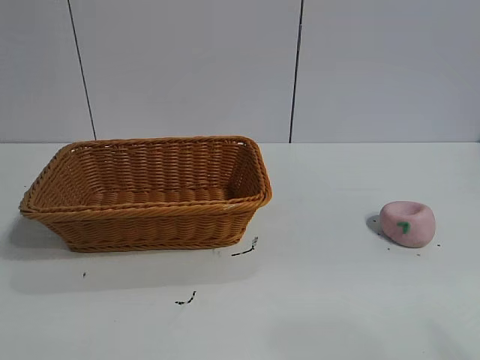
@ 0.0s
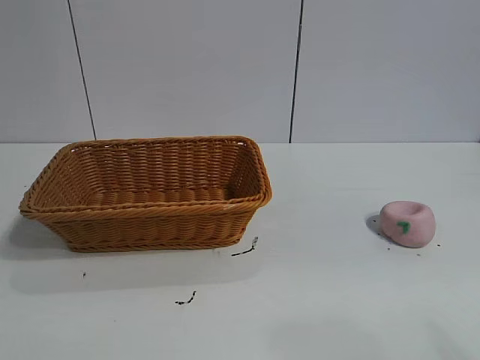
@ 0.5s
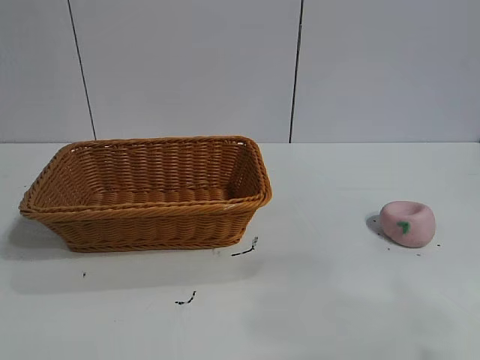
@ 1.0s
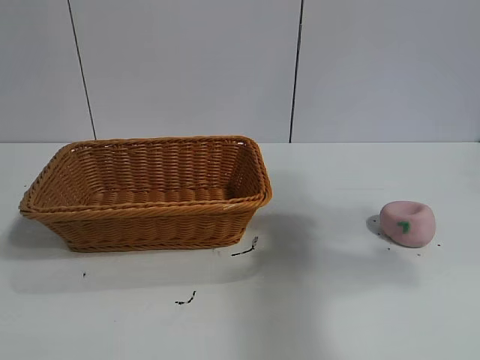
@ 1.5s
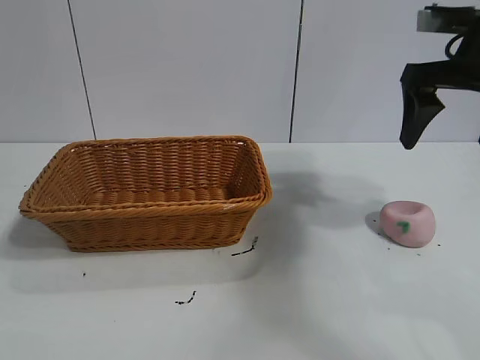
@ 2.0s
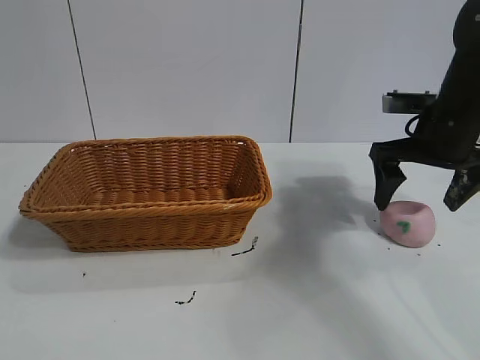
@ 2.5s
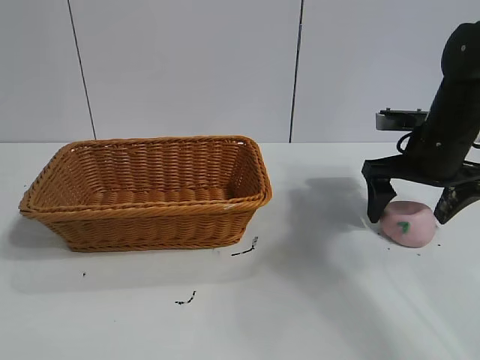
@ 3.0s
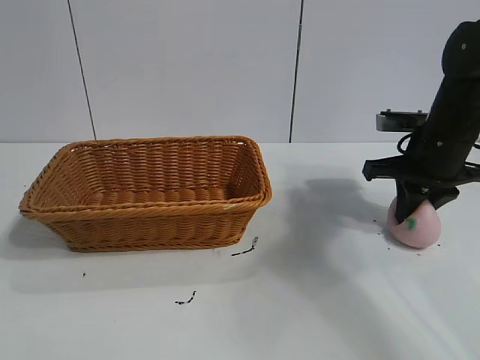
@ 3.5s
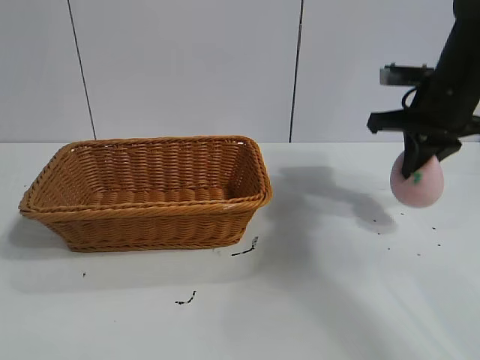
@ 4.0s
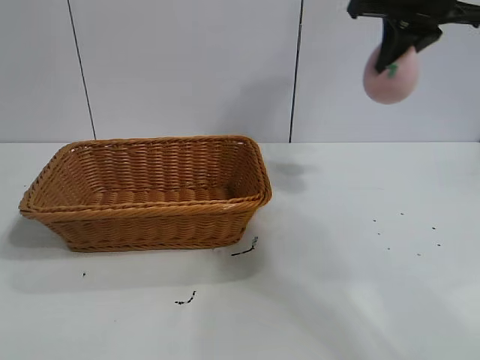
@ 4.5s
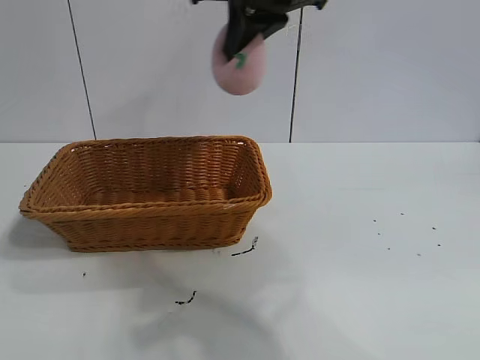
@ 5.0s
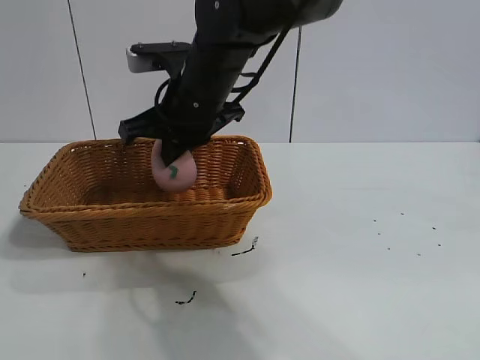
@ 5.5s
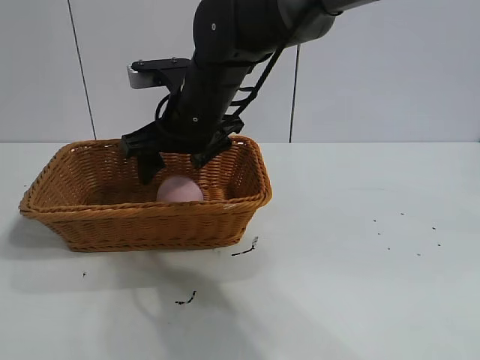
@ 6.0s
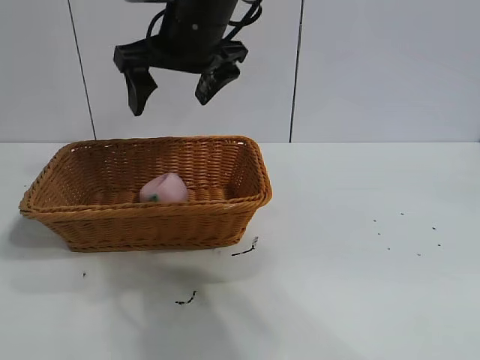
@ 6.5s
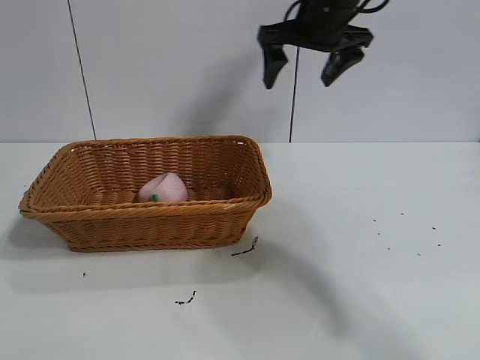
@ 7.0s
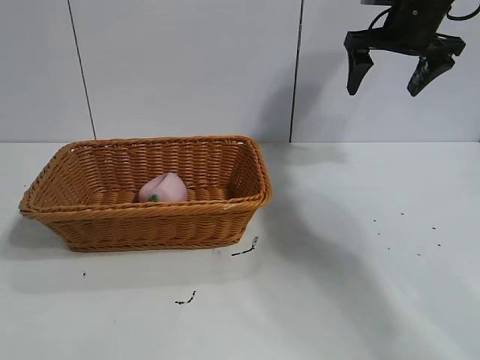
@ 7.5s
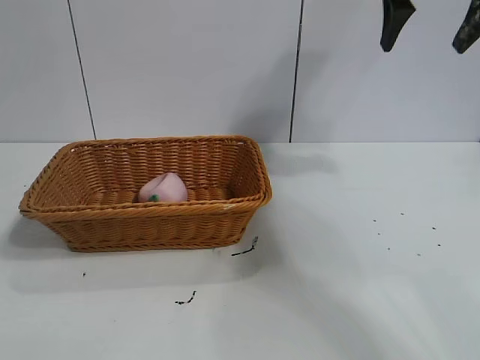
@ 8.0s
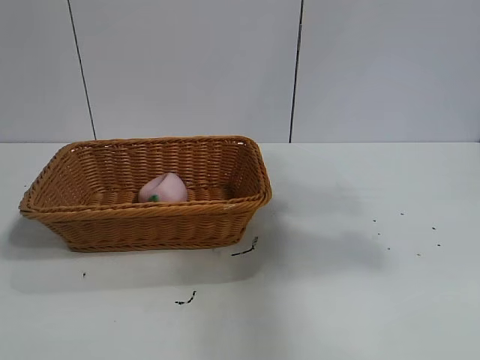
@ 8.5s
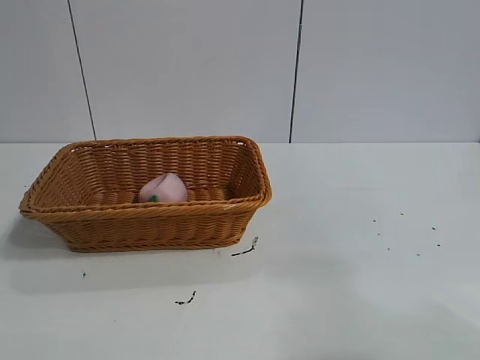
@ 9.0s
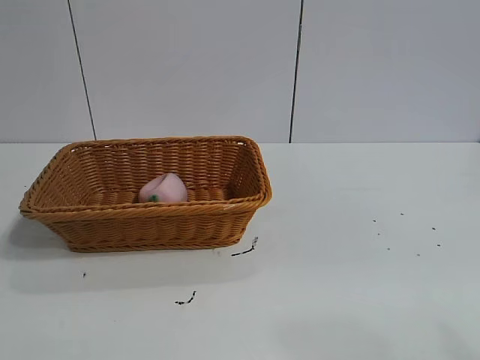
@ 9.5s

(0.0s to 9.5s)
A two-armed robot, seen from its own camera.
Task of the whole recording: pick up the peach and put it into the basket.
Step, 1.0s - 3.5s: Grasp the peach with right gripper.
Step, 4.0s - 6.0s: Place the peach in the basket with right gripper.

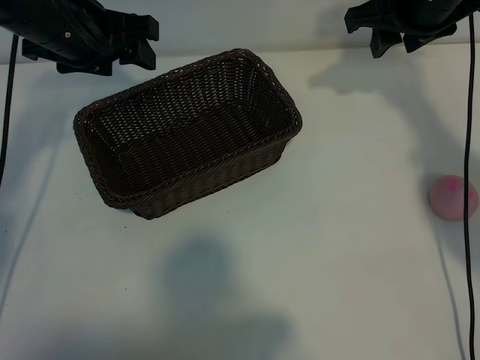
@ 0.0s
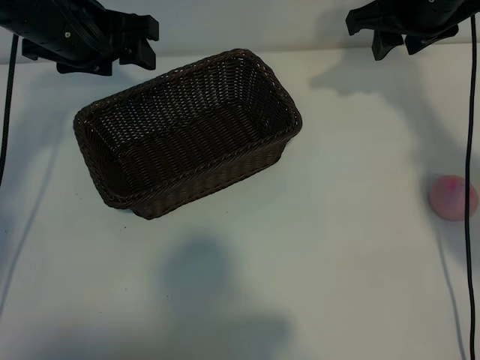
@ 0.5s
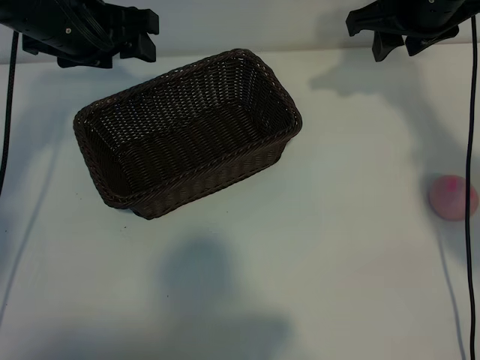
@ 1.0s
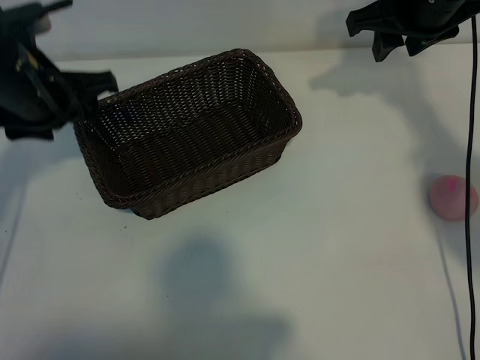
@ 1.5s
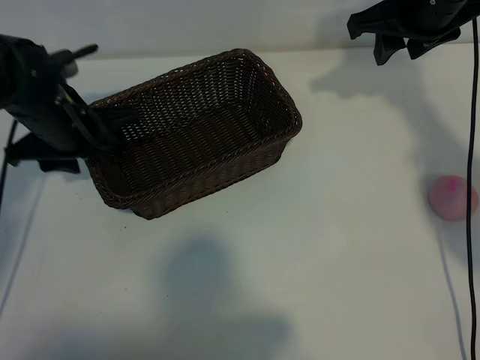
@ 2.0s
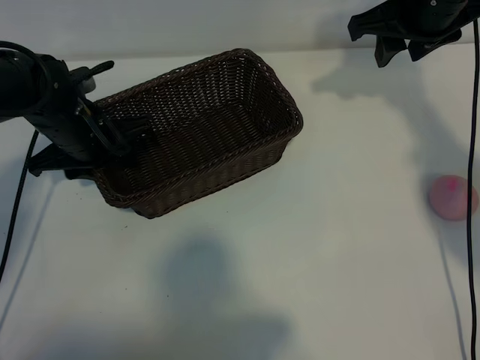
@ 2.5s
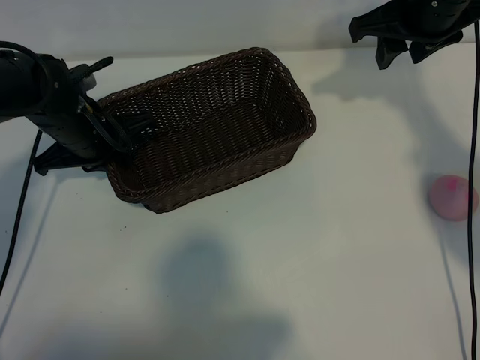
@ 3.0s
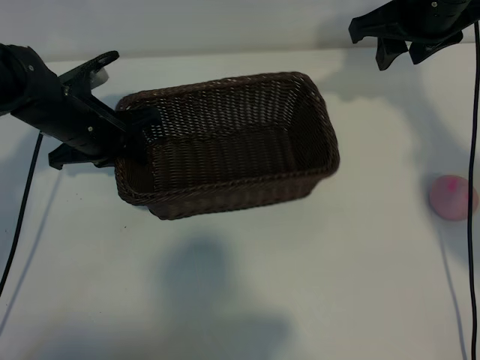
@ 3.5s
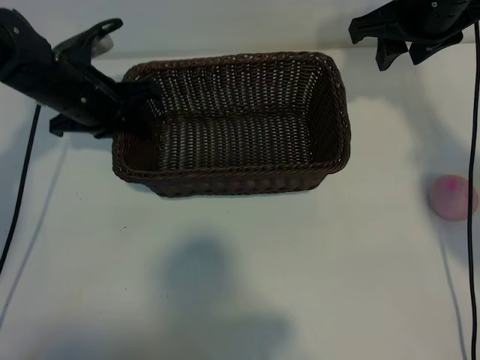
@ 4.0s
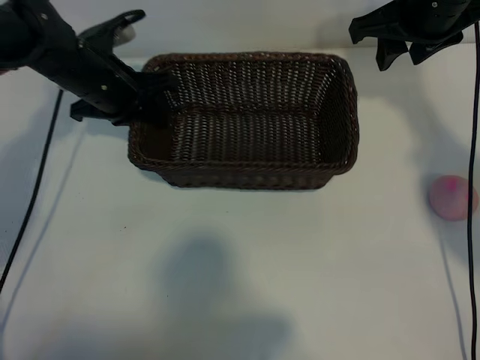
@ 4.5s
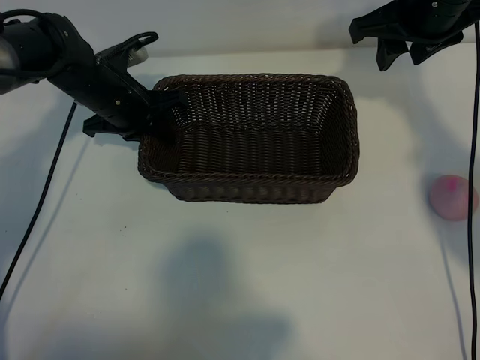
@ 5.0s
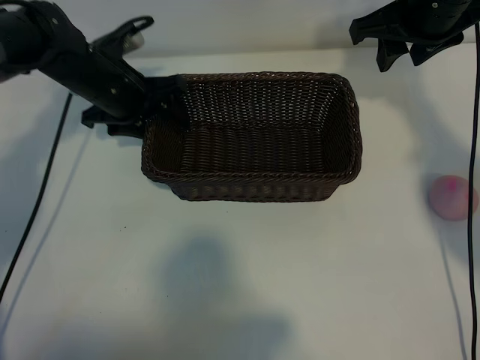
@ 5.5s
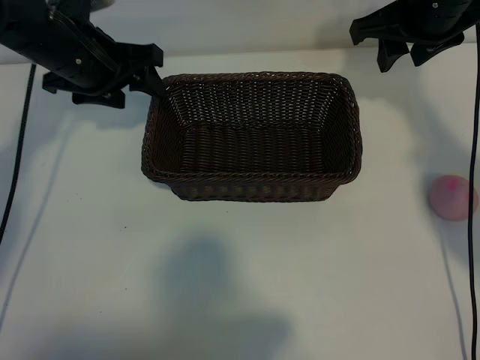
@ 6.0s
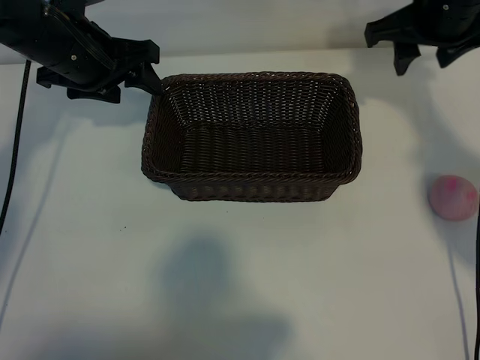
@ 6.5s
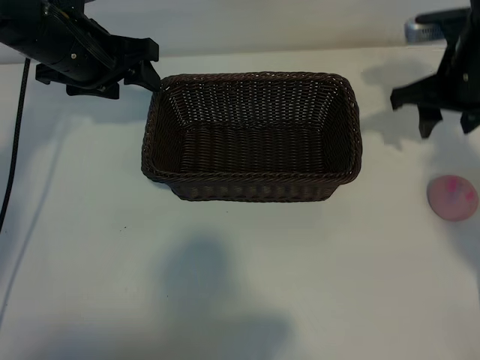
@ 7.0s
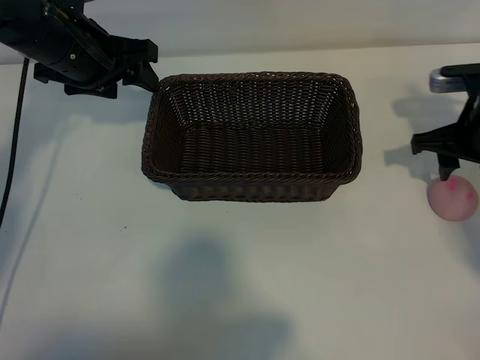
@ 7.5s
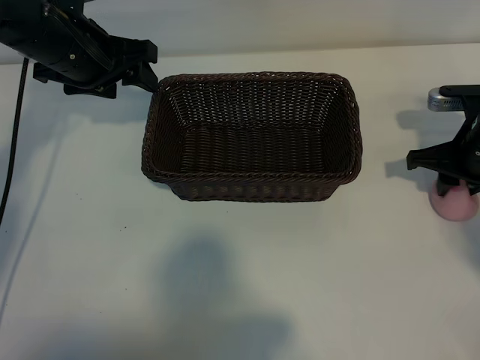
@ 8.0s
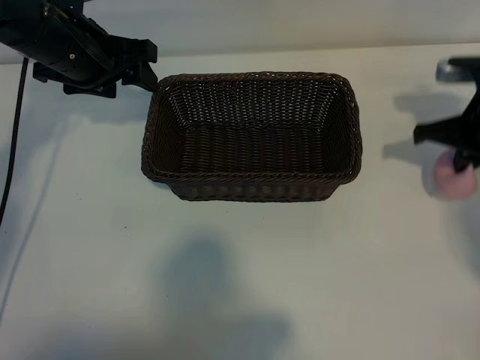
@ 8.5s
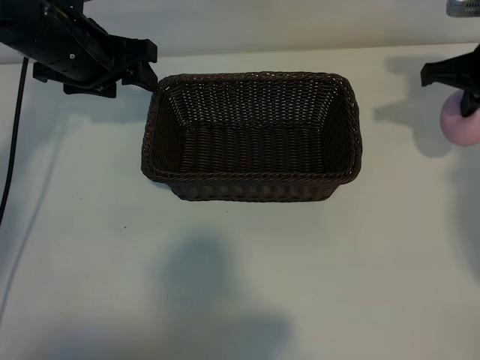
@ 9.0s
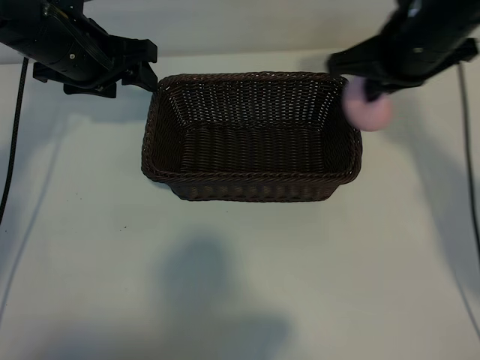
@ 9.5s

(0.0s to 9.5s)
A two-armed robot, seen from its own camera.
Task of the whole recording: pick up the peach and put it into the basket.
Step, 1.0s - 2.5s: Grasp the basket with left gripper.
Step, 3.0s - 5.5s: Place the basket in the center of view with left gripper.
Step, 6.0s - 8.0s: Grasp the peach with right gripper.

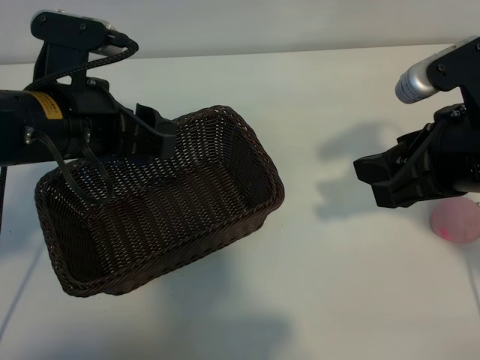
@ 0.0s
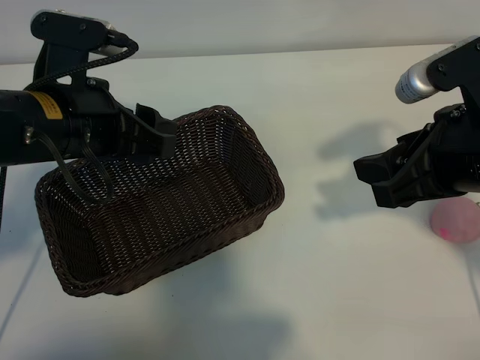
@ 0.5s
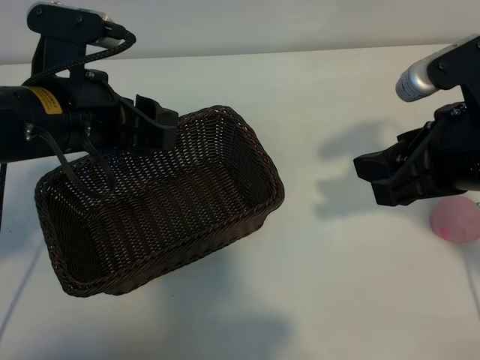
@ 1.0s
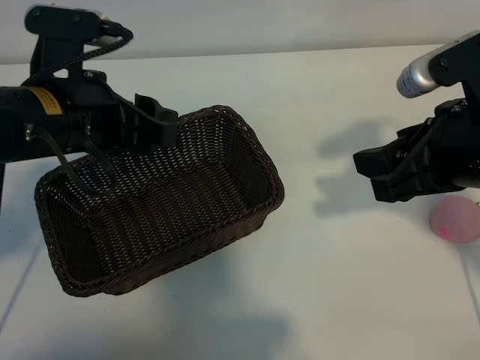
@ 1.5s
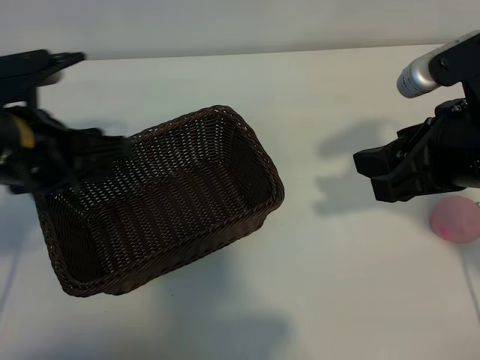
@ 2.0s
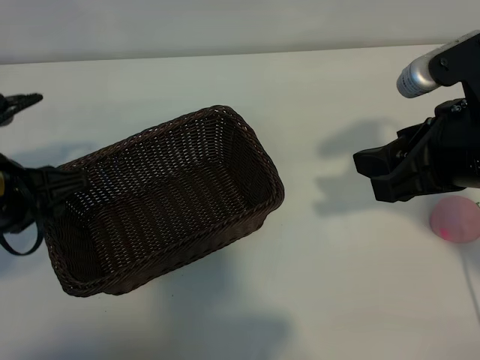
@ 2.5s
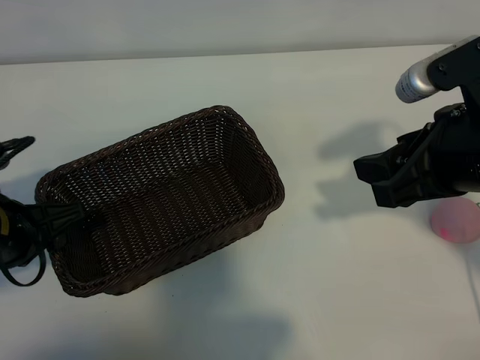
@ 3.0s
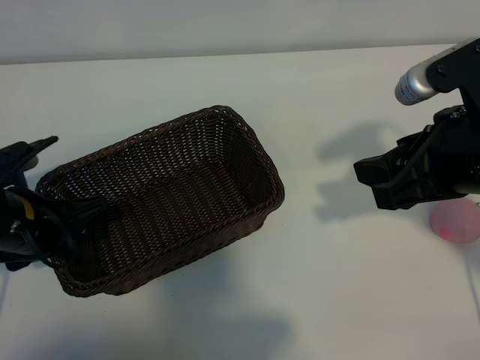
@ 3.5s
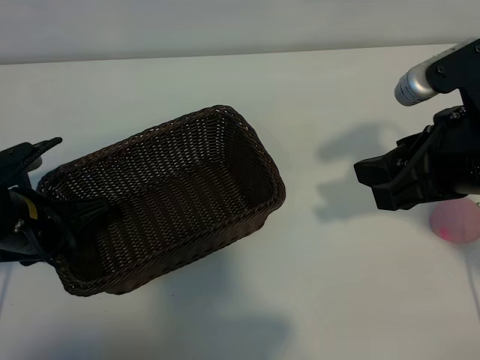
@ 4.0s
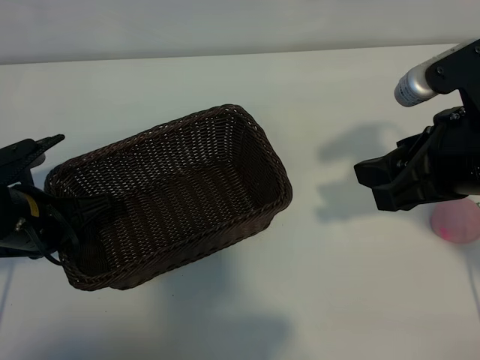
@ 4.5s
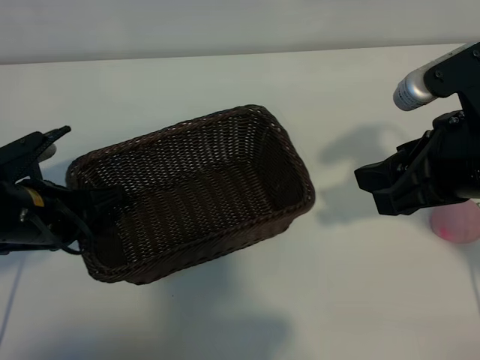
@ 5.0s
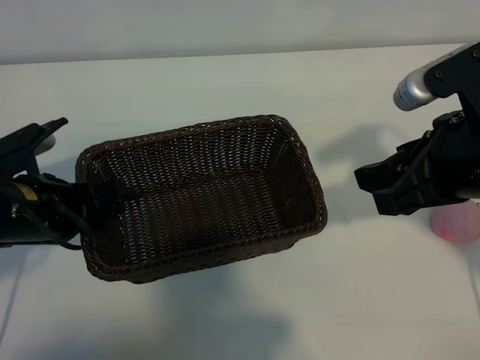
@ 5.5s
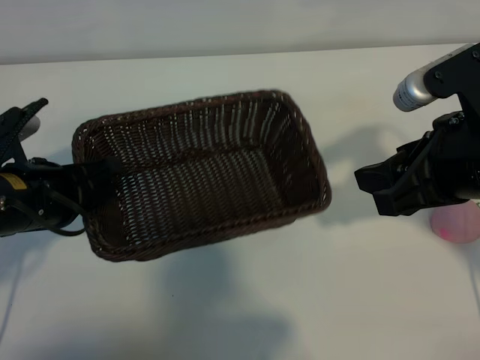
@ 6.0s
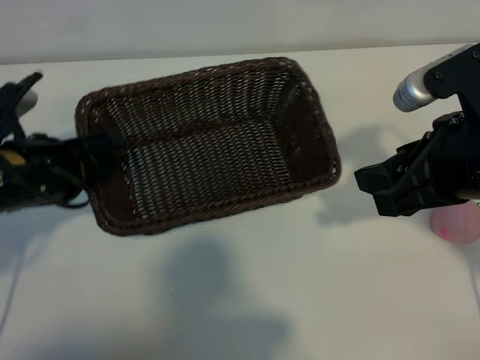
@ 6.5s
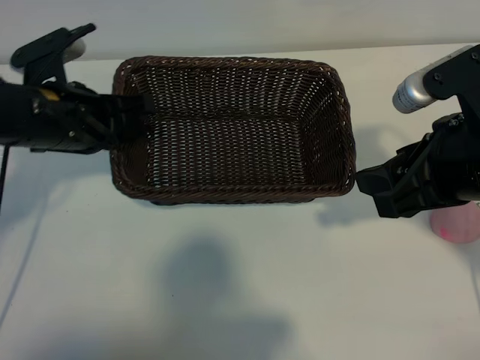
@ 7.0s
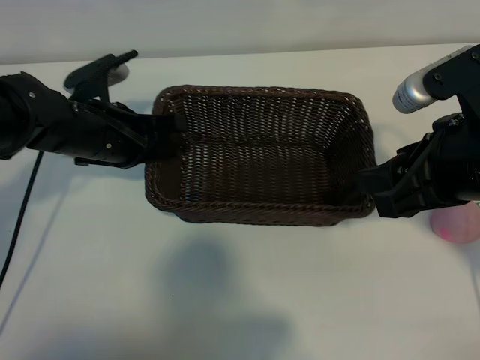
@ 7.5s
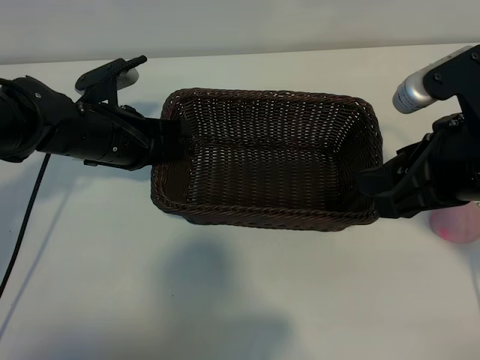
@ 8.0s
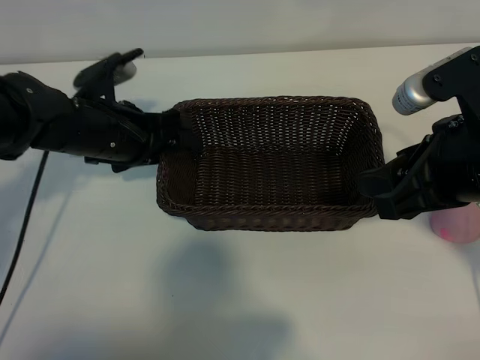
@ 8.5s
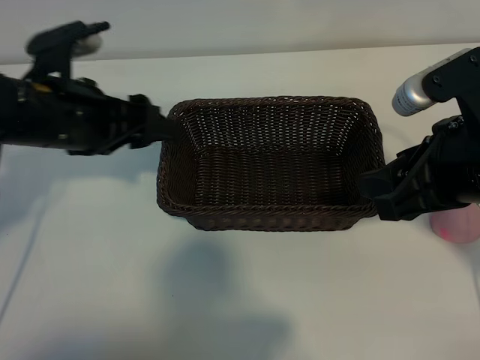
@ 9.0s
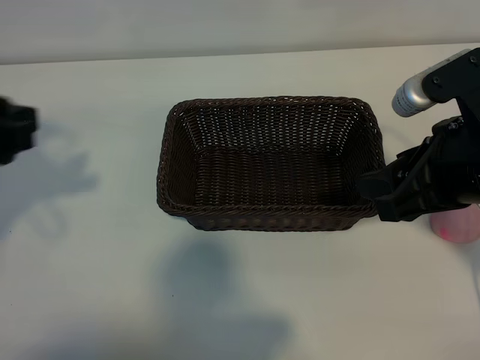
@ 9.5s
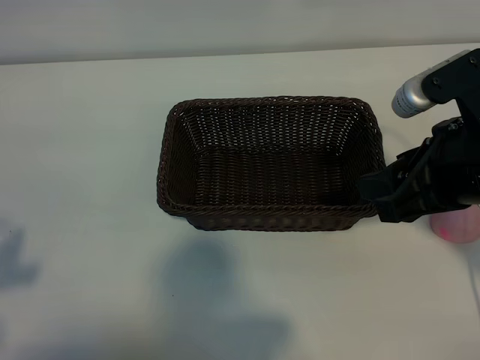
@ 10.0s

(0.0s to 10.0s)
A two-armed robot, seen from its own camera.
Task of the whole recording: pick up the peach and put it into the basket.
Step, 1.0s - 4.0s: Grasp the basket with left gripper.
Step, 4.5s - 8.5s: Place the basket in the center of view with left gripper.
